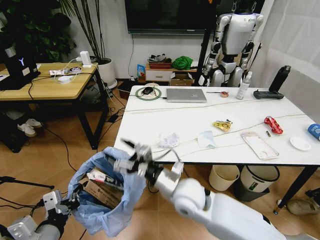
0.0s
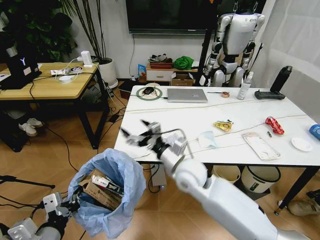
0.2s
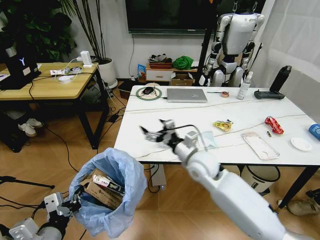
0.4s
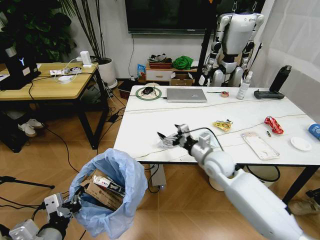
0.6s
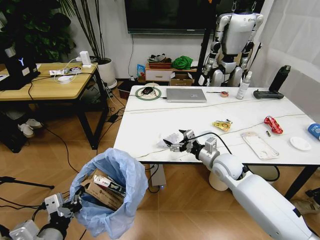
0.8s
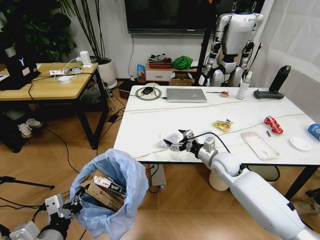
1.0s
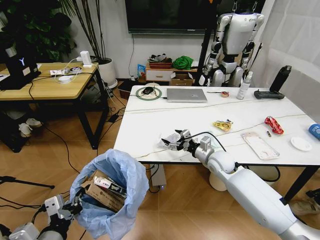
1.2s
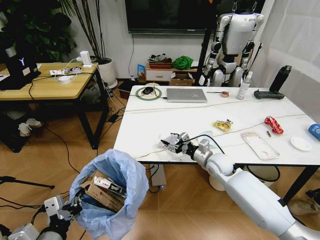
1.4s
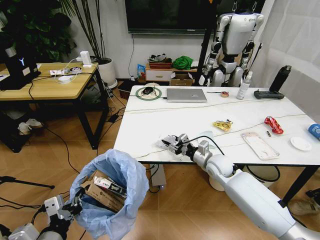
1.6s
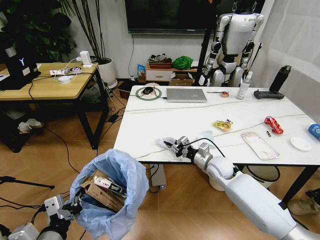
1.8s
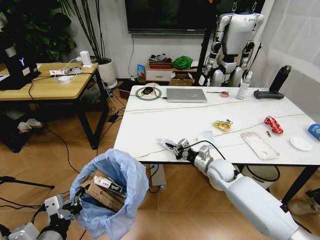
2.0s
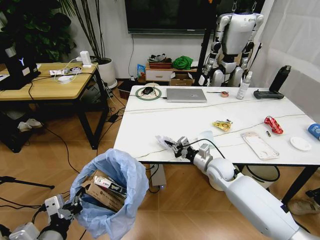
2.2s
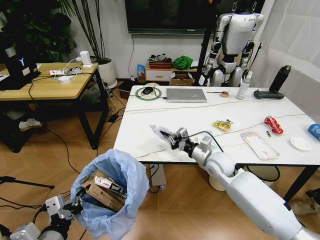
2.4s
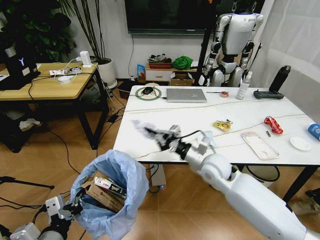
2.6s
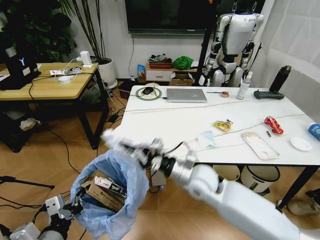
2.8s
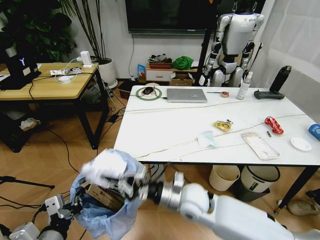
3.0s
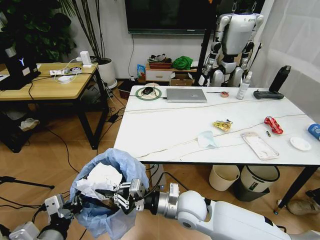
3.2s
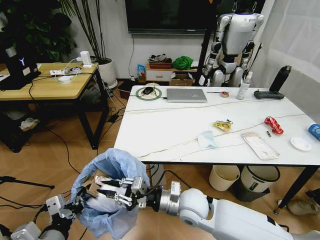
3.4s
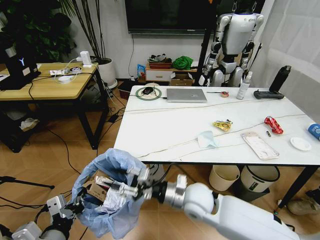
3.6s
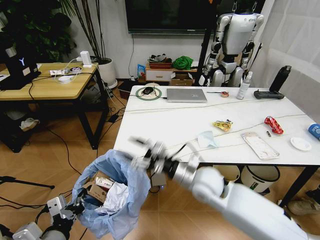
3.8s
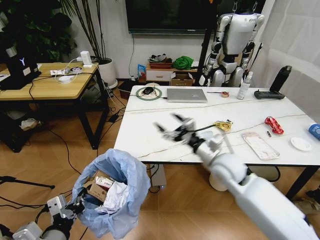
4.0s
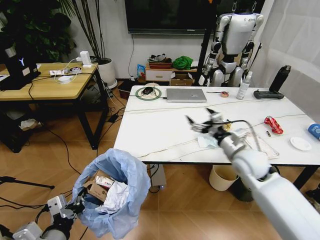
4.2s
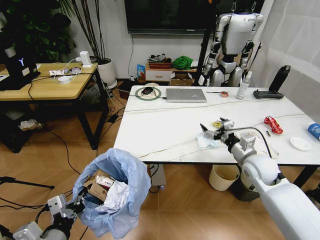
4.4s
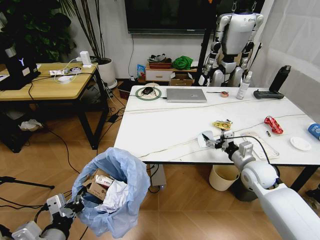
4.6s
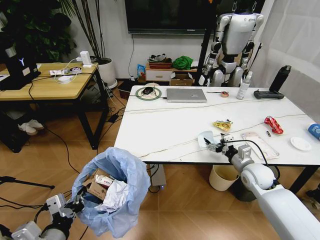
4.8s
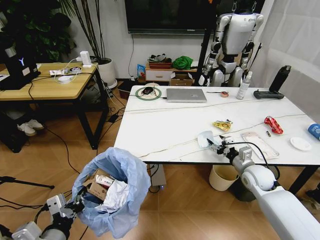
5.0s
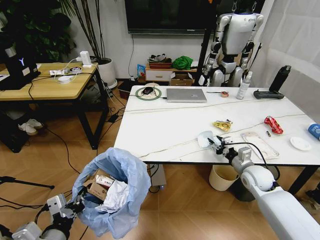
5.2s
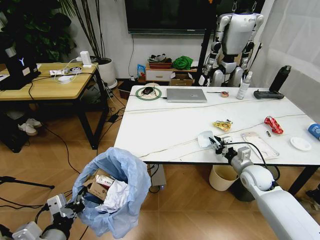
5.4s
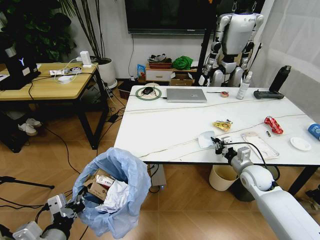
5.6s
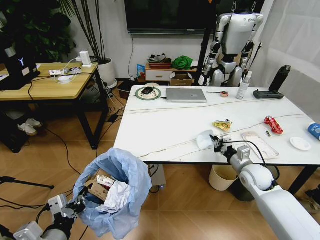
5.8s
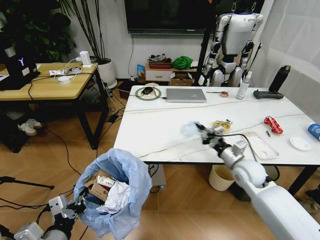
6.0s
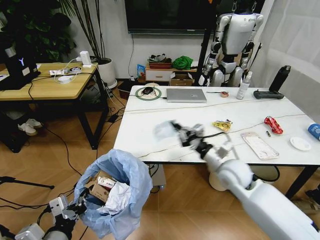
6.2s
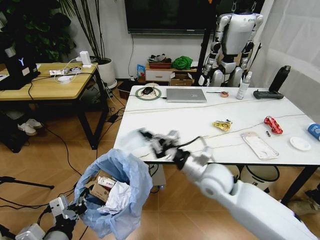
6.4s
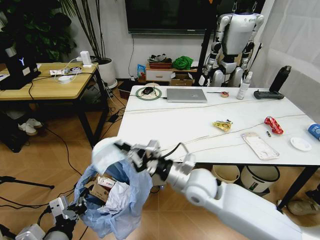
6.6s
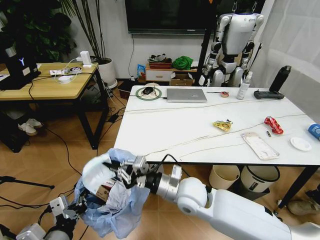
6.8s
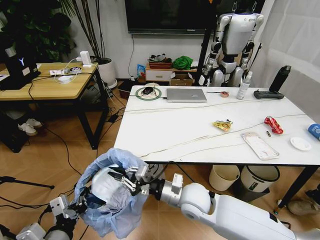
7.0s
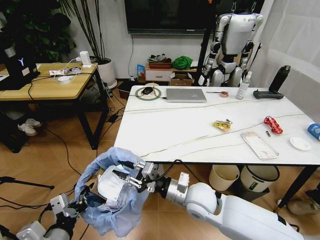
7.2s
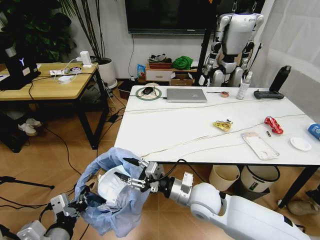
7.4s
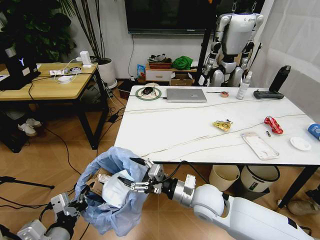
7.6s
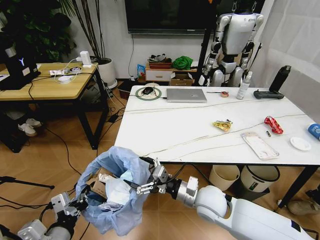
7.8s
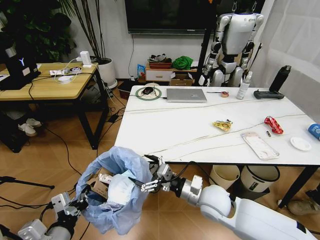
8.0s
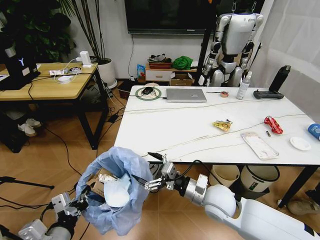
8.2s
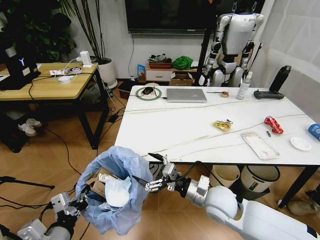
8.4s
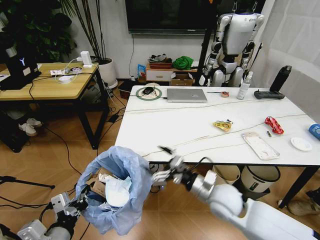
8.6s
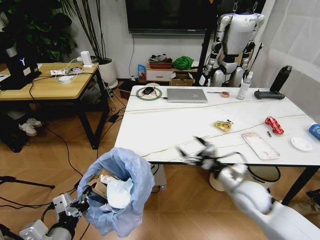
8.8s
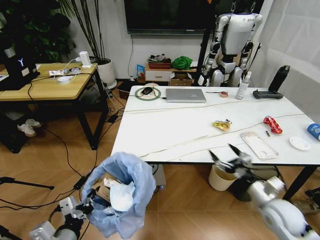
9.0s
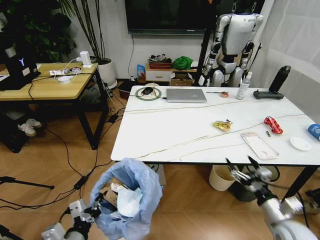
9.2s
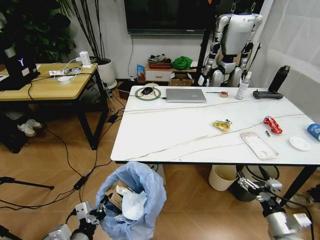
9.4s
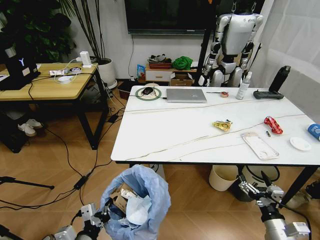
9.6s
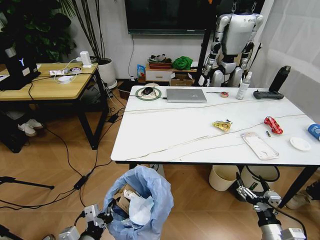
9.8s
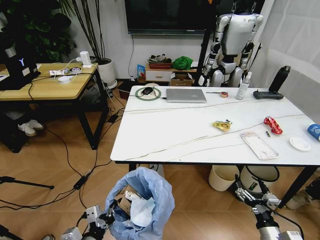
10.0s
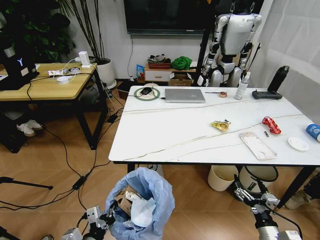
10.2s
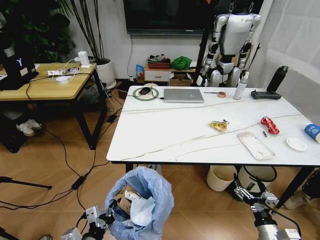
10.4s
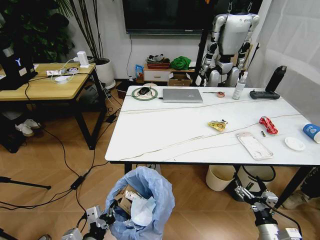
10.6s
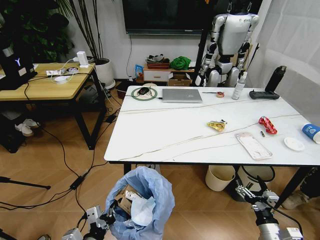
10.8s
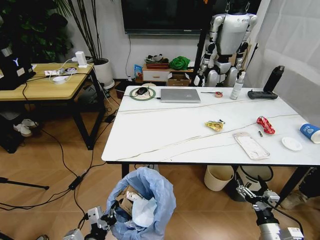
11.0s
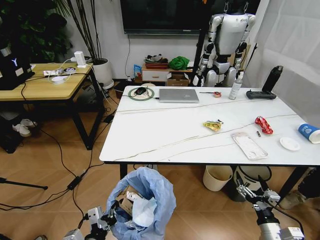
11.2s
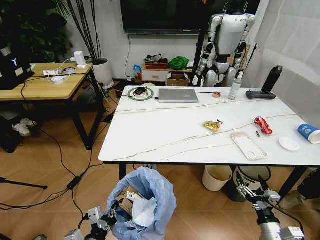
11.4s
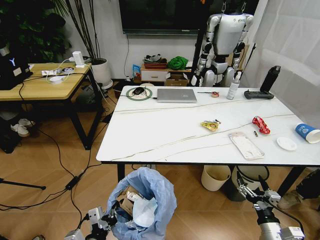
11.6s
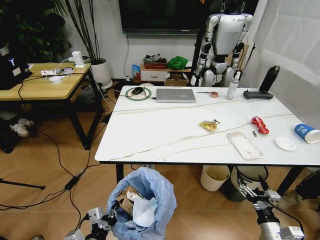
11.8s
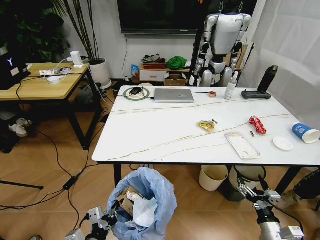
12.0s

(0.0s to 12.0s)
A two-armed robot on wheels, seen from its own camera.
Task of the whole recording: Pick up the trash bin and place the trash from the table into it.
0.0s - 1.6s: The right gripper goes some 20 cm to the right, forward and downward.
1.6s - 3.0s: The right gripper shifts some 20 cm backward and to the left, and closes up.
3.0s - 4.4s: The right gripper shifts roughly 25 cm to the right, and opens up.
4.4s - 6.0s: The right gripper closes up.
6.0s - 7.6s: The right gripper moves to the left and backward, some 20 cm, and opens.
7.6s - 9.0s: The right gripper travels to the right by approximately 20 cm.
9.0s - 10.4s: The right gripper shifts approximately 15 cm backward and downward. The left gripper shifts about 5 cm downward.

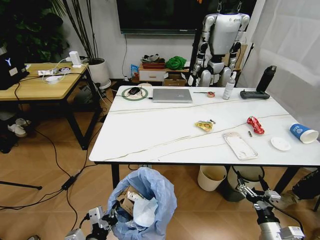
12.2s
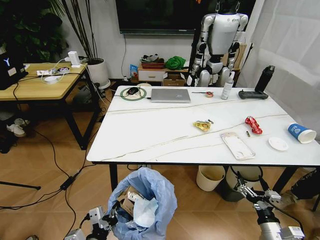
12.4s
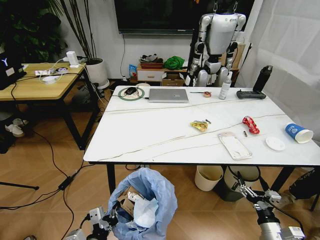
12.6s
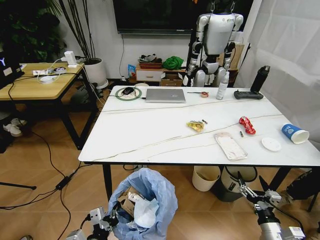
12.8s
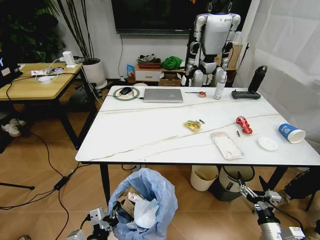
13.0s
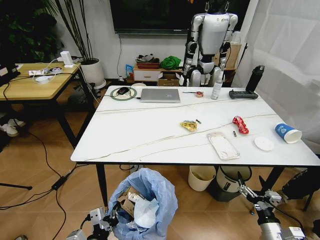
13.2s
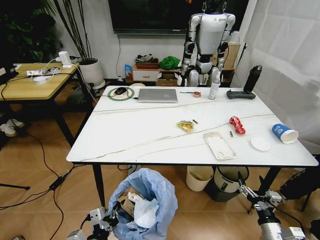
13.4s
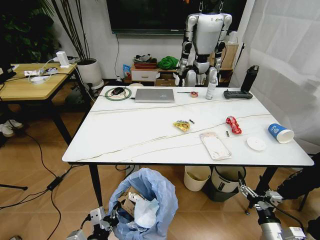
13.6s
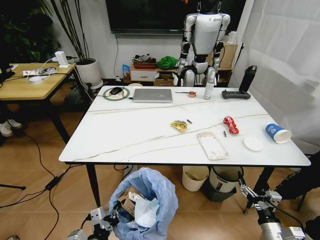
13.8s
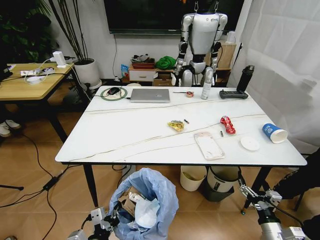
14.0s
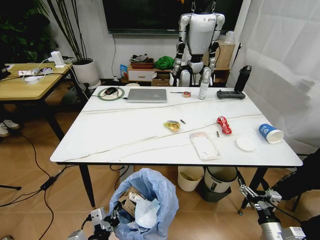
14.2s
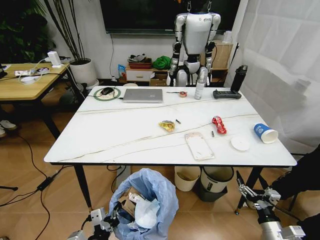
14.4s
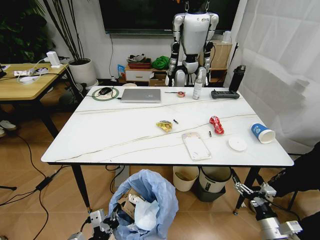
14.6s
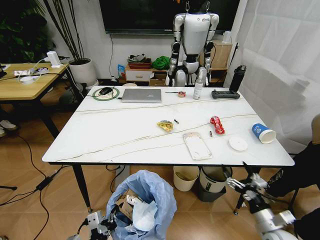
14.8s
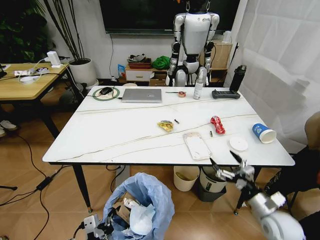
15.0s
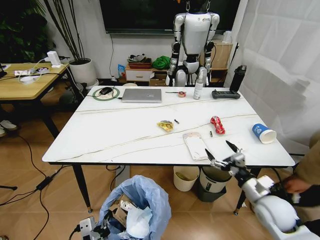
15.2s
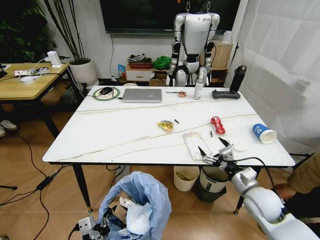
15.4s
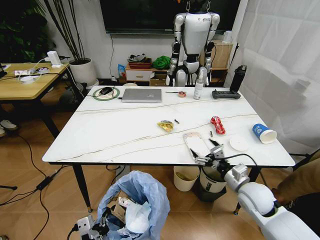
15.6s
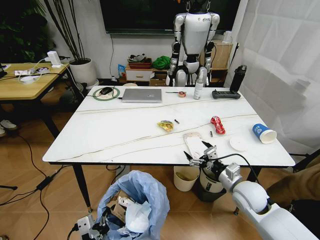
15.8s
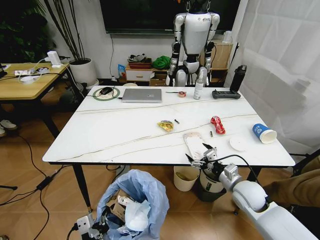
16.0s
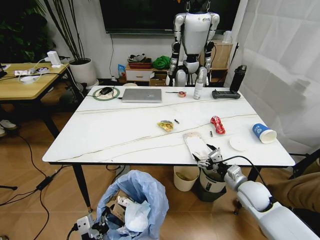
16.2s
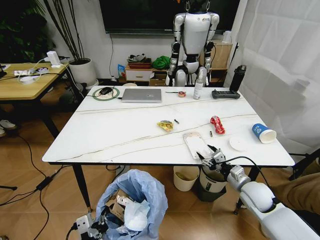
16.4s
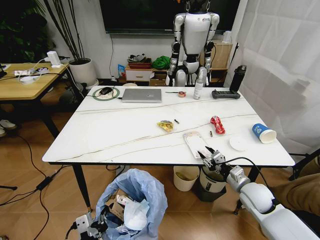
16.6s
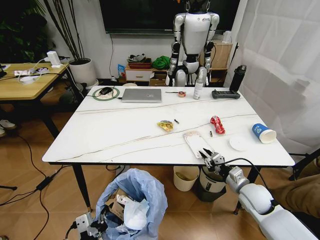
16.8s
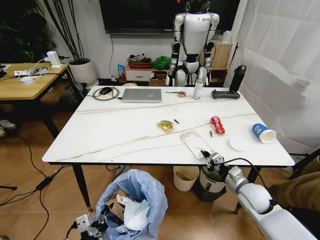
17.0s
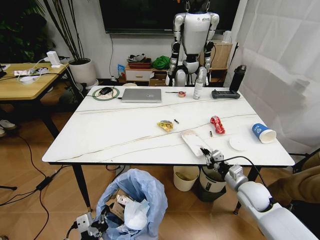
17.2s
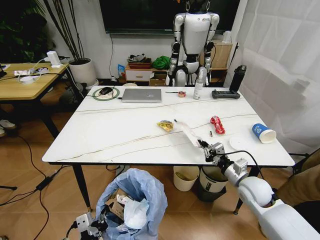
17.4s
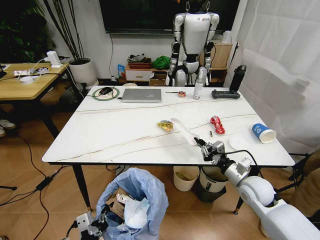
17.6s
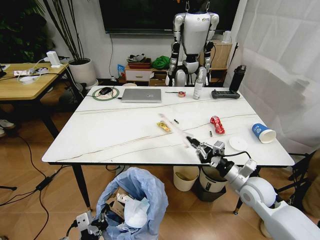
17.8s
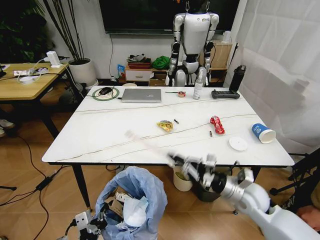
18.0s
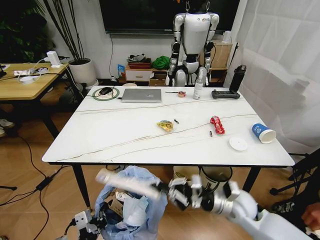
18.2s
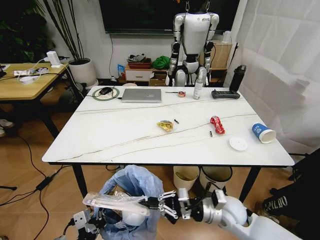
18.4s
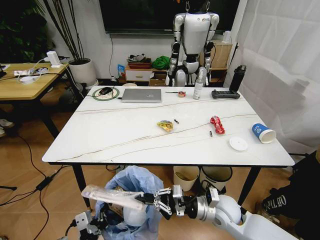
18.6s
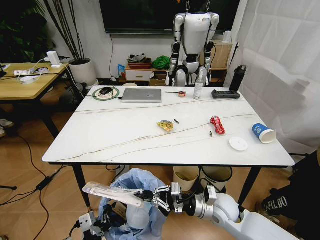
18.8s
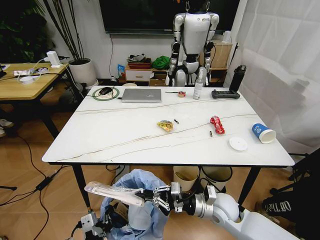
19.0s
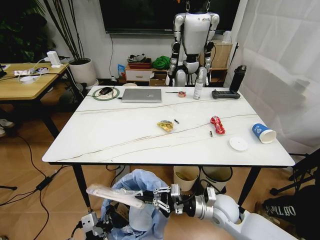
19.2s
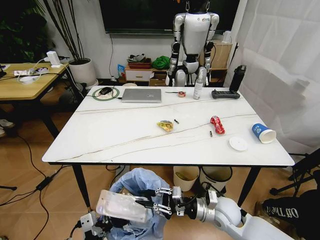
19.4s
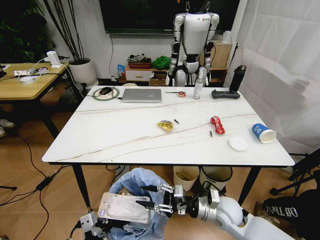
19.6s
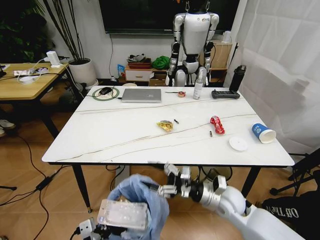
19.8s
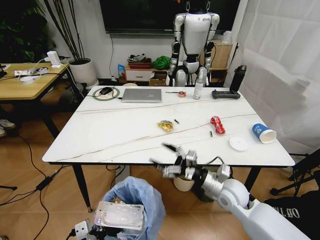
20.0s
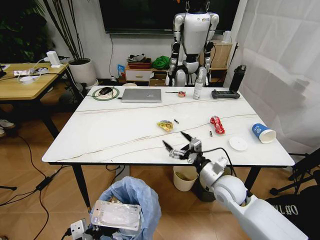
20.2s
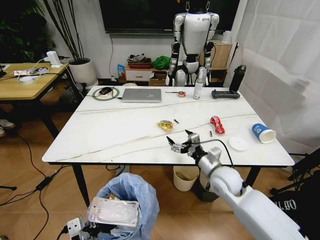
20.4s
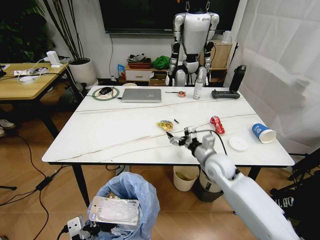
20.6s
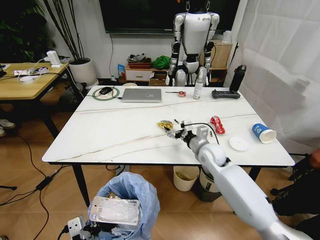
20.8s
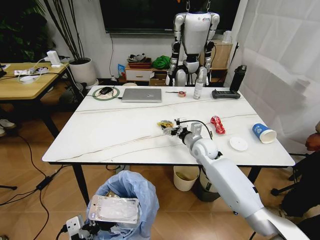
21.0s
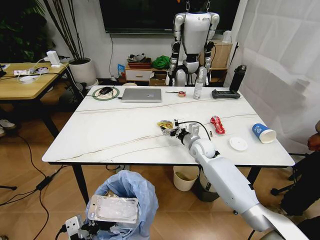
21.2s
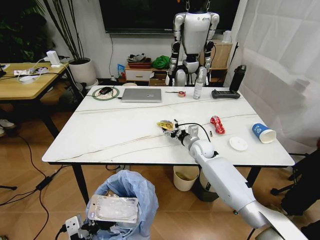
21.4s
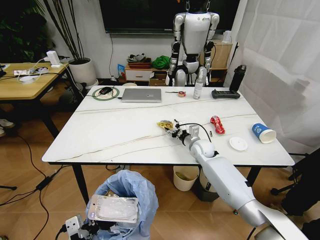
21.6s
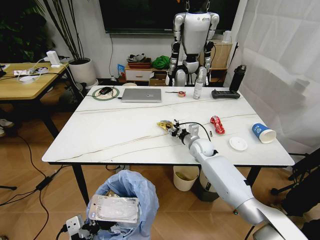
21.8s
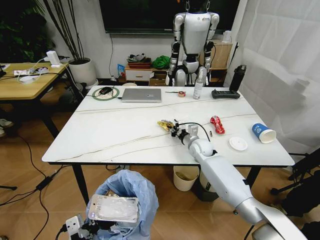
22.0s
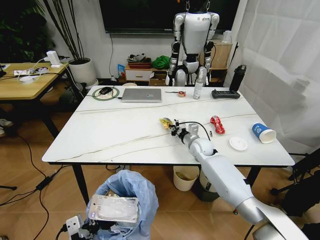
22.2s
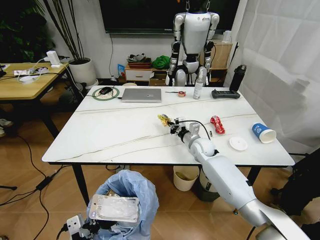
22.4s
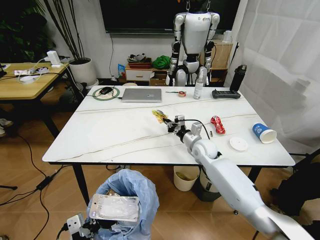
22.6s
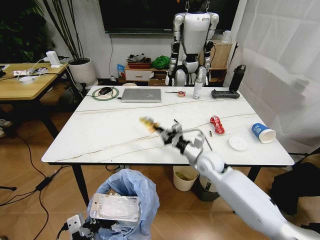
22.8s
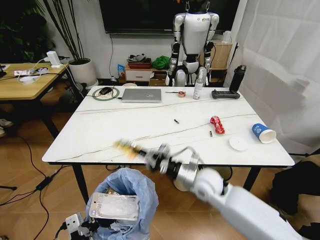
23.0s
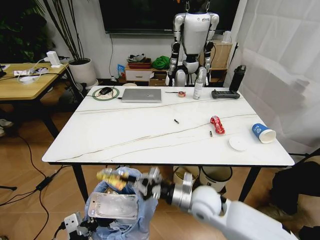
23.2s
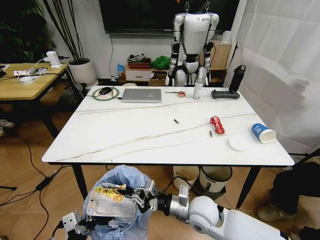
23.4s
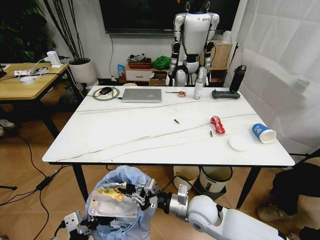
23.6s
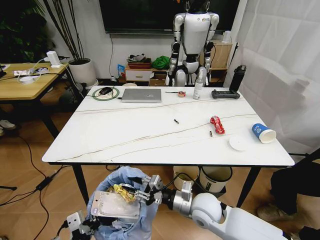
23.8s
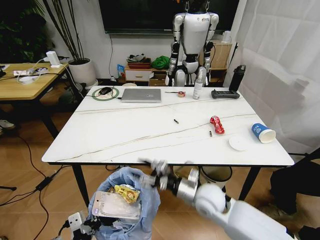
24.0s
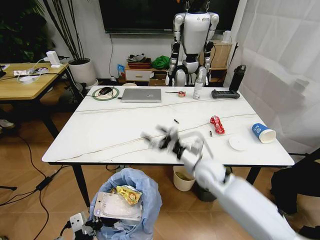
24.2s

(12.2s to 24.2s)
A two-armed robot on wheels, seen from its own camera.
Task of the whole recording: Pick up the trash bin and place the trash from the table into it.
13.8s - 15.2s: The right gripper shifts roughly 15 cm forward and upward.
15.2s - 16.6s: The right gripper travels forward by roughly 5 cm, and closes.
16.6s - 18.2s: The right gripper goes some 10 cm to the left, and closes its fingers.
18.2s - 19.8s: The right gripper opens.
19.8s - 21.2s: The right gripper goes approximately 20 cm forward.
21.2s - 22.6s: The right gripper closes its fingers.
22.6s - 24.2s: The right gripper travels backward by about 15 cm, and opens its fingers.
